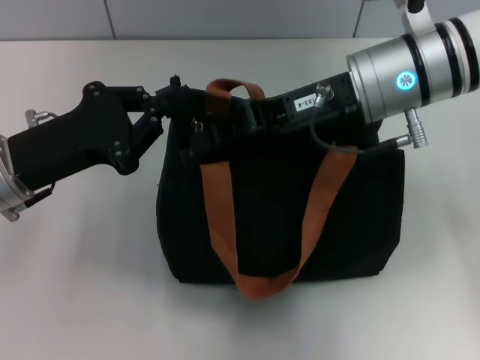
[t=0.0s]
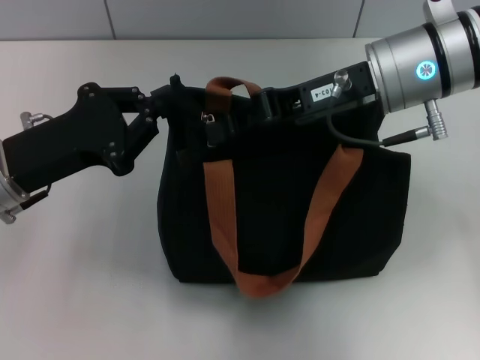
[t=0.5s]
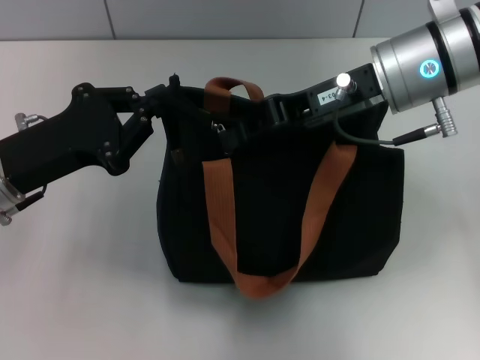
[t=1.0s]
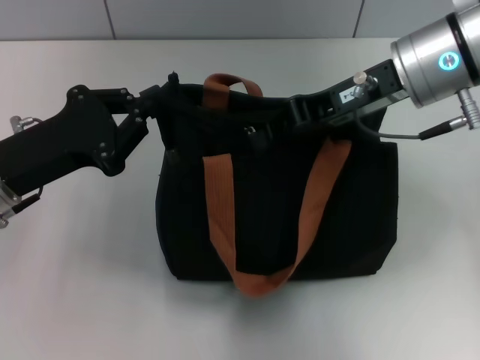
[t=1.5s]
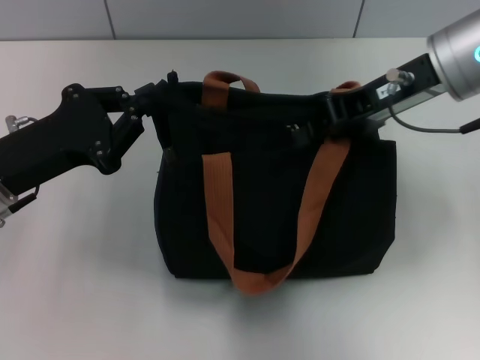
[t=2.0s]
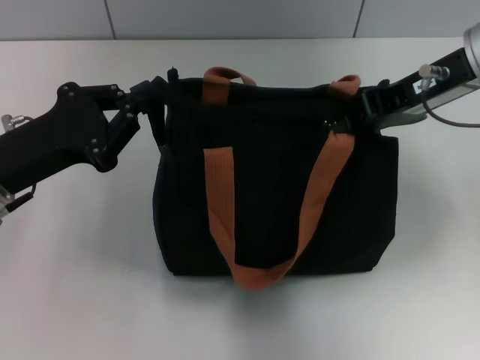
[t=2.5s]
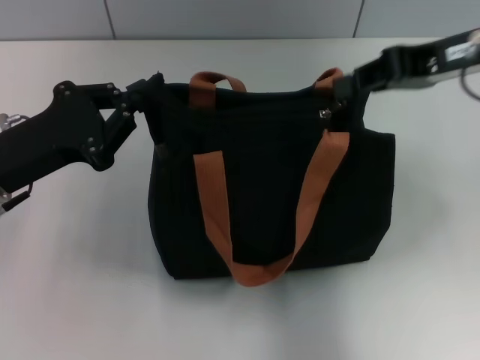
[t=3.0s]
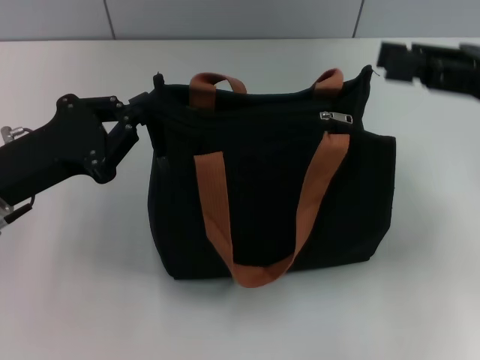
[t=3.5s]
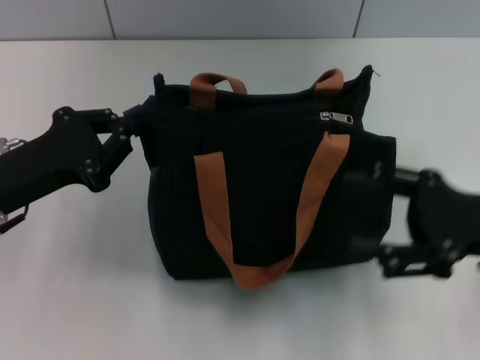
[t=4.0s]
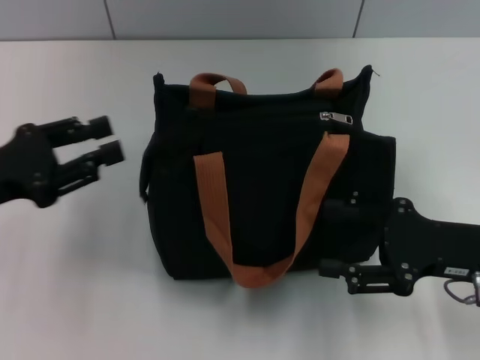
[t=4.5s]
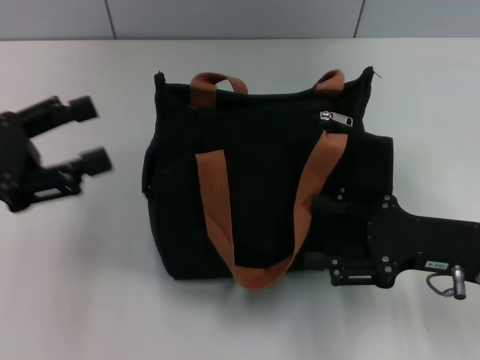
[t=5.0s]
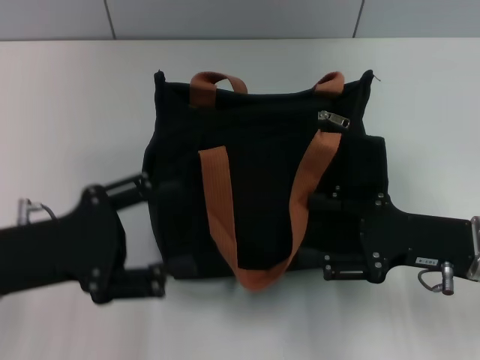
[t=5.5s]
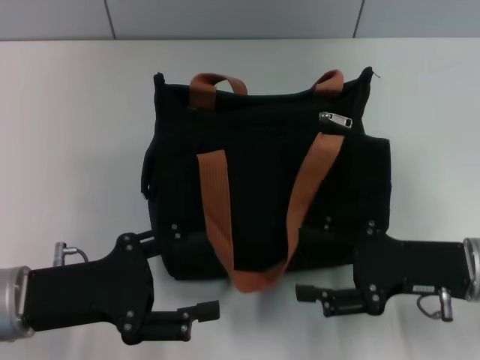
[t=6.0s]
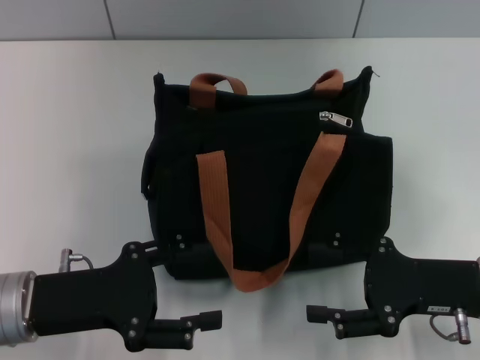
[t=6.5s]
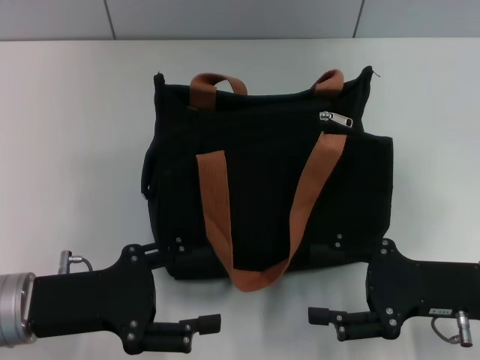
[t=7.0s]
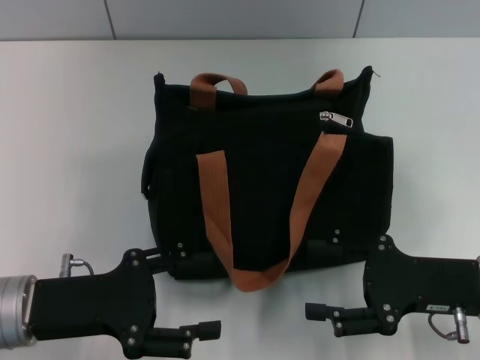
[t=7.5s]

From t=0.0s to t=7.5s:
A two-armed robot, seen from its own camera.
Step, from t=0.0s to t=3.0s: Pull up the zipper with your right hand.
From t=0.0s to t=2.0s: The right gripper is displaced to the right by approximately 5 cm.
From t=2.0s to t=4.0s: The right gripper goes about 20 cm downward, backward and to the right, and opens.
From t=4.0s to t=5.5s: The left gripper opens its fingers. Meanwhile the right gripper ends up about 5 cm from where it was.

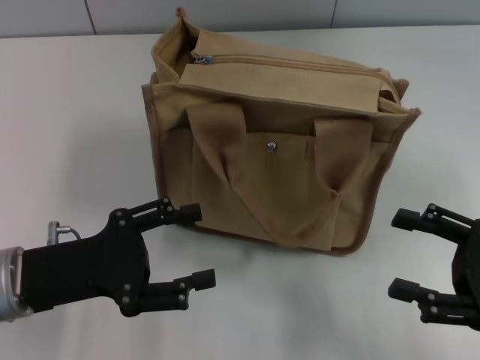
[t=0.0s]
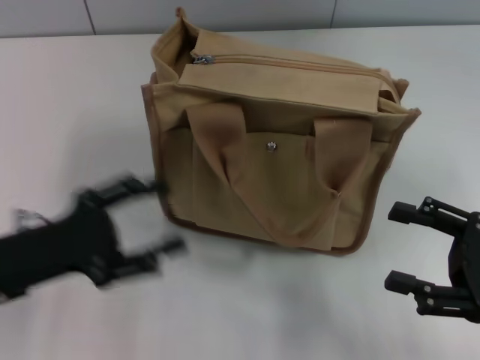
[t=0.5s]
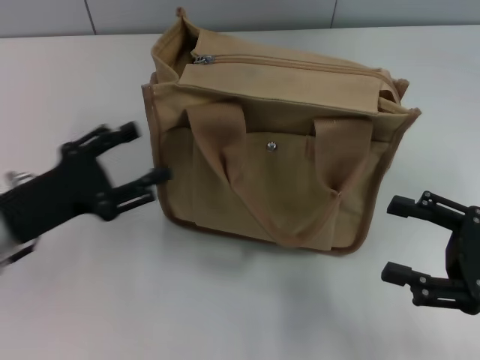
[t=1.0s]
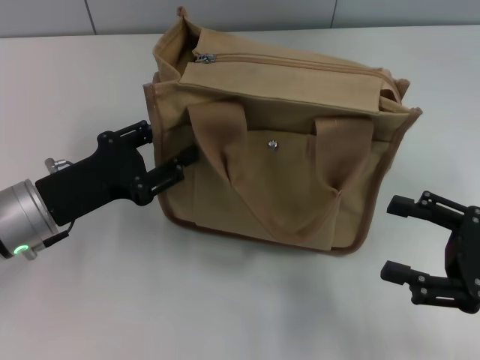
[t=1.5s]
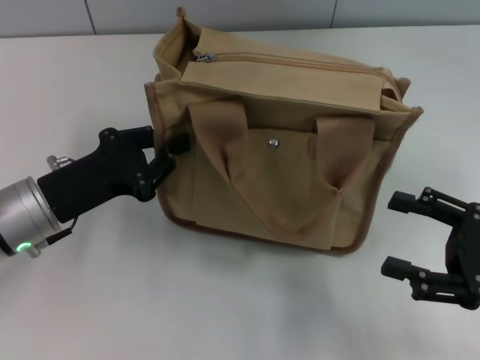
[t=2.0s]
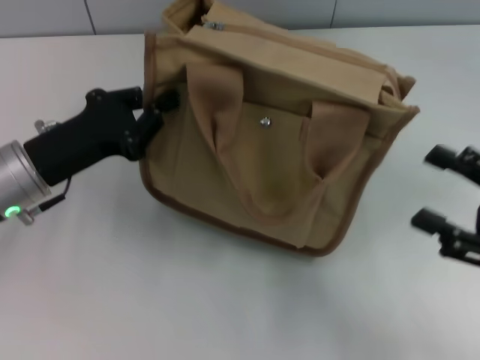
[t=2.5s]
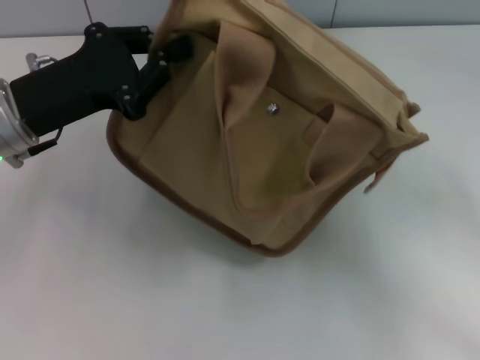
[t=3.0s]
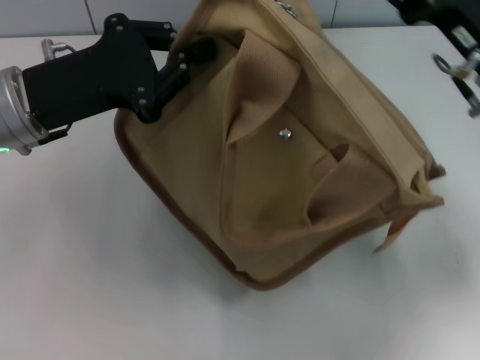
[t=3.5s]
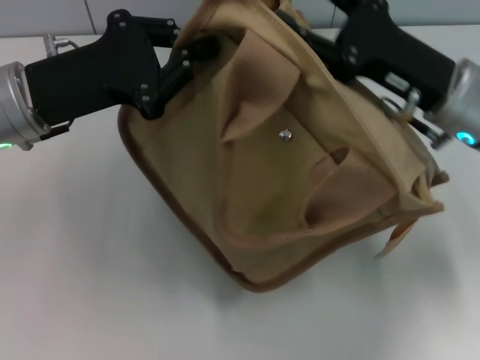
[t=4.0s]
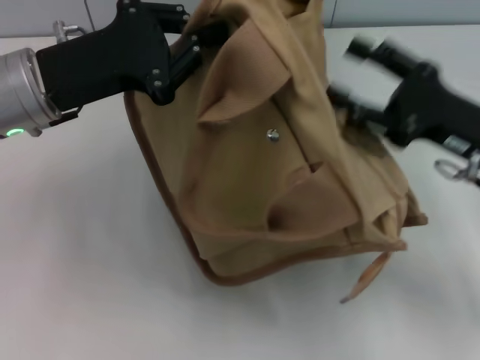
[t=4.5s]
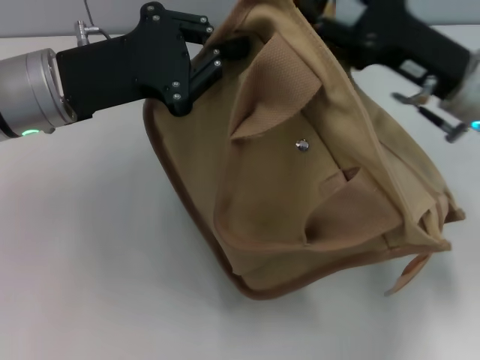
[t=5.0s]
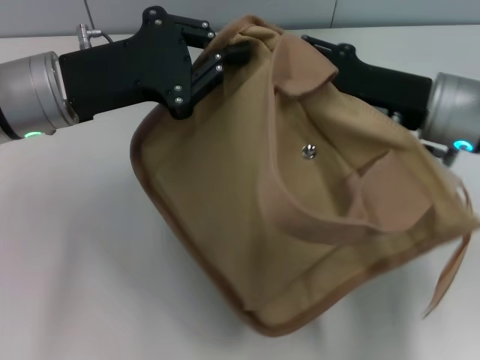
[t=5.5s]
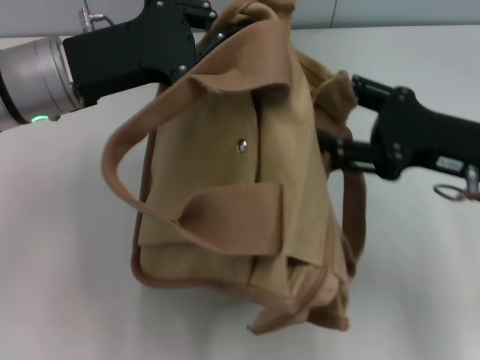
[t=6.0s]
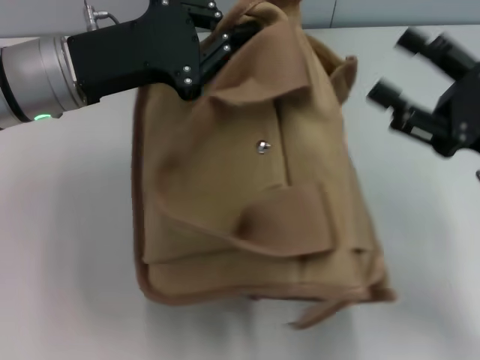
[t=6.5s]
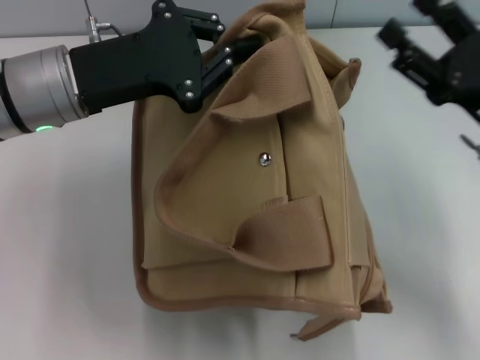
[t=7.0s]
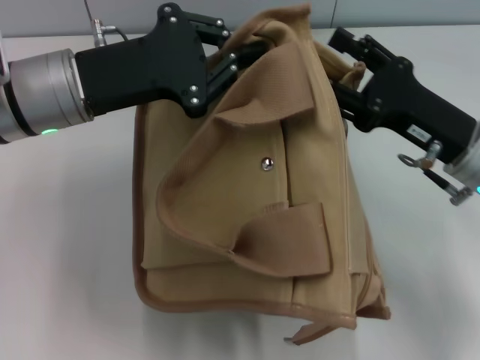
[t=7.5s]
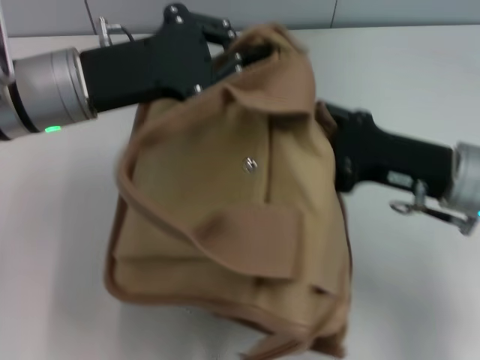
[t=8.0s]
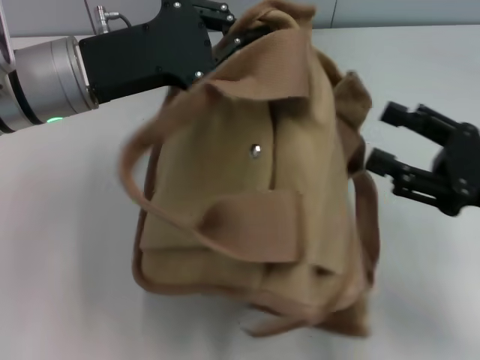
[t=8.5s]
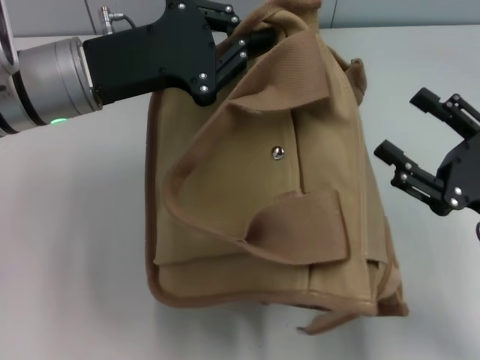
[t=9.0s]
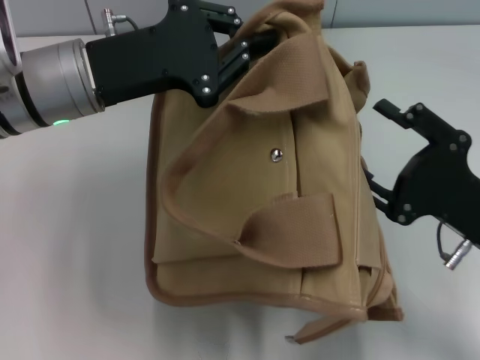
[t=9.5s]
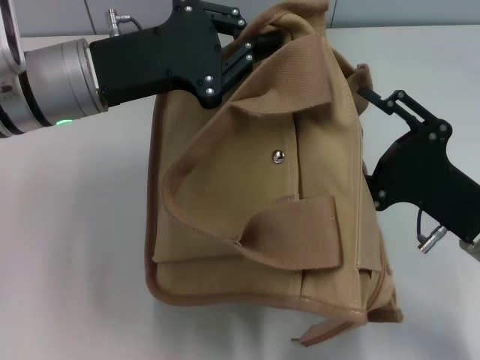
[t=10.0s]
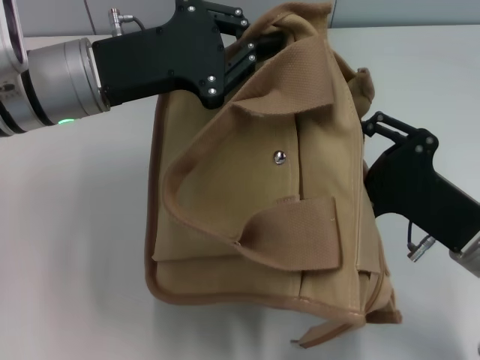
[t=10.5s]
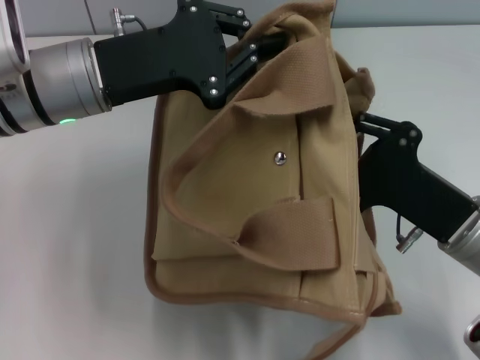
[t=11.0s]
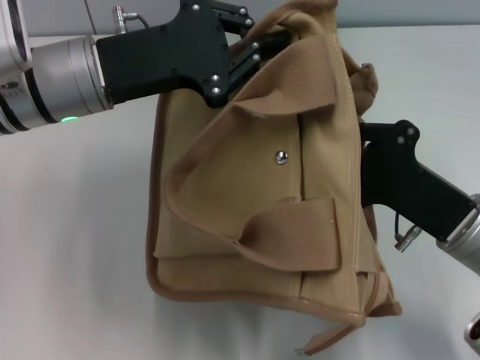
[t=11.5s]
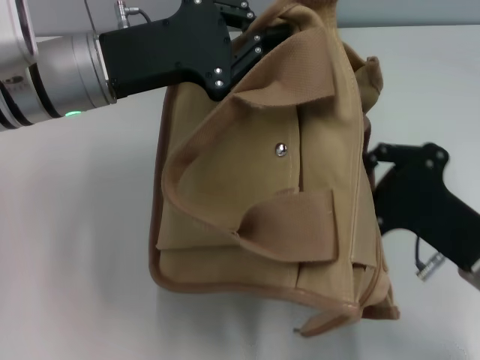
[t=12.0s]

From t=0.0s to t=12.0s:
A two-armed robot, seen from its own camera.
From t=0.0s to t=2.0s: The left gripper travels forward by about 5 cm, and closes its fingers.
From t=2.0s to t=4.0s: The right gripper moves forward and to the left, approximately 15 cm, while the left gripper is displaced upward by some 10 cm.
From t=4.0s to t=6.0s: The right gripper moves forward and backward over some 5 cm, changing direction 2 times.
From t=8.0s to t=10.0s: The right gripper shifts by some 5 cm.
From t=10.0s to t=12.0s: The right gripper closes up.

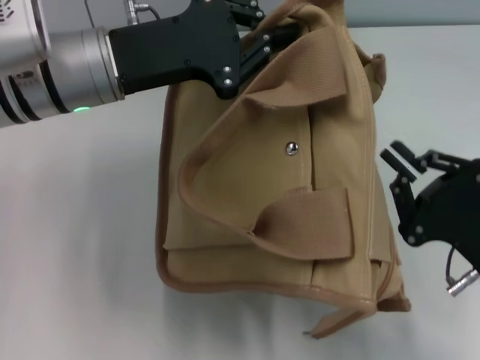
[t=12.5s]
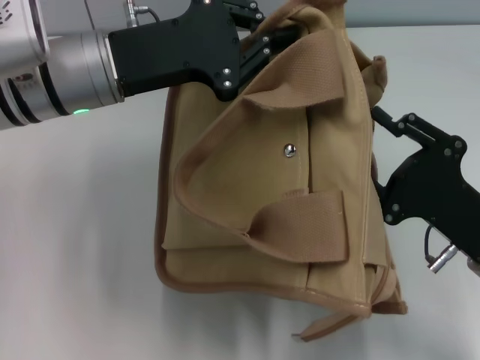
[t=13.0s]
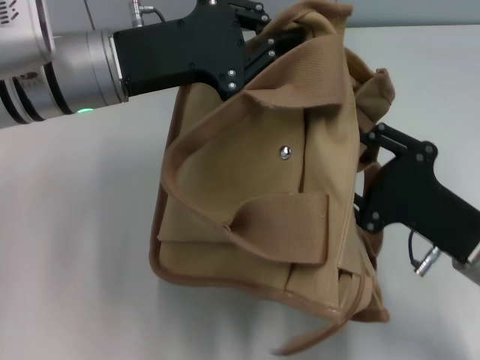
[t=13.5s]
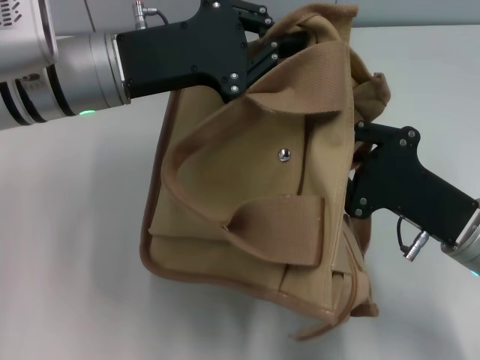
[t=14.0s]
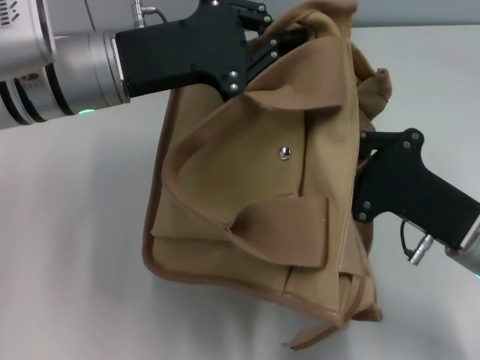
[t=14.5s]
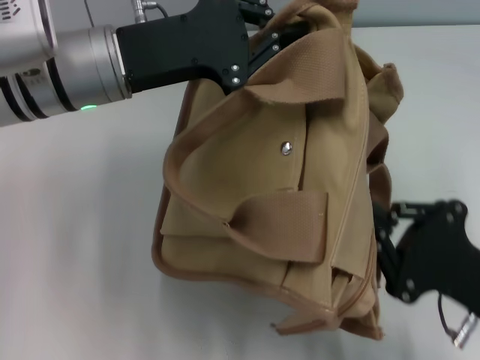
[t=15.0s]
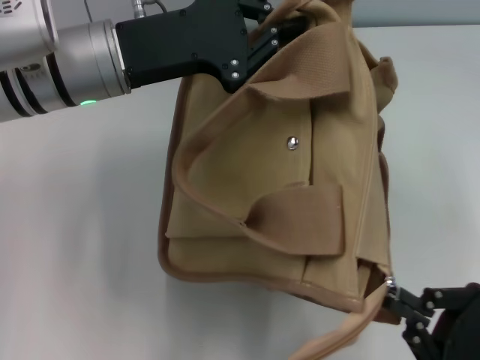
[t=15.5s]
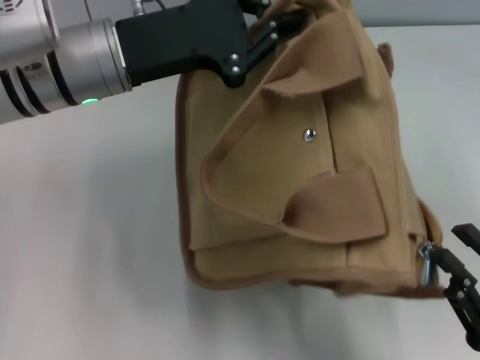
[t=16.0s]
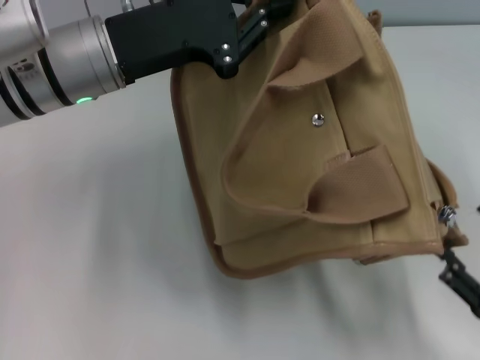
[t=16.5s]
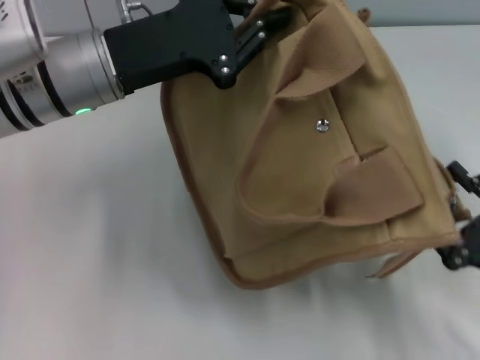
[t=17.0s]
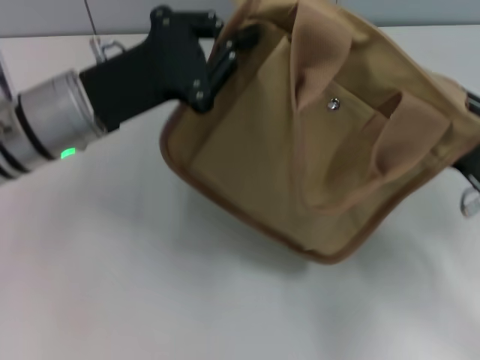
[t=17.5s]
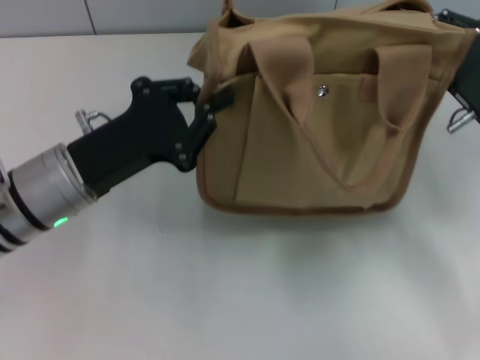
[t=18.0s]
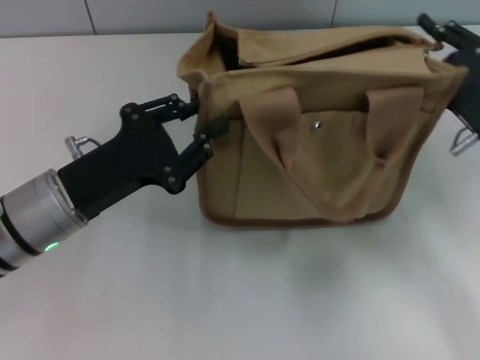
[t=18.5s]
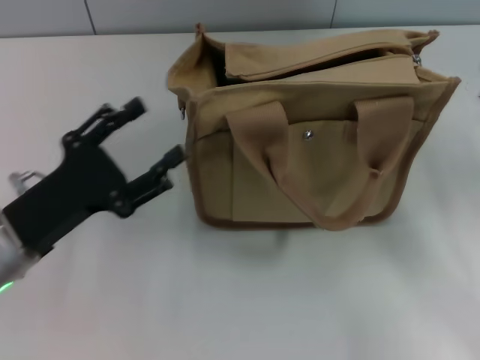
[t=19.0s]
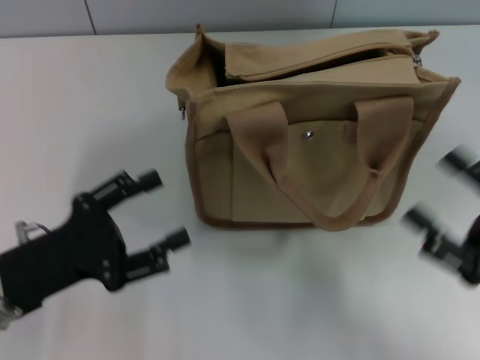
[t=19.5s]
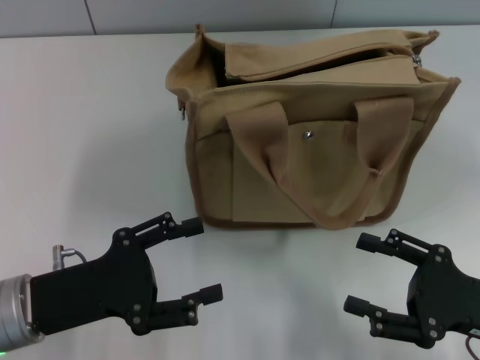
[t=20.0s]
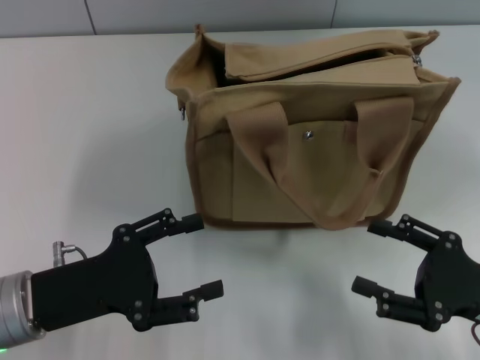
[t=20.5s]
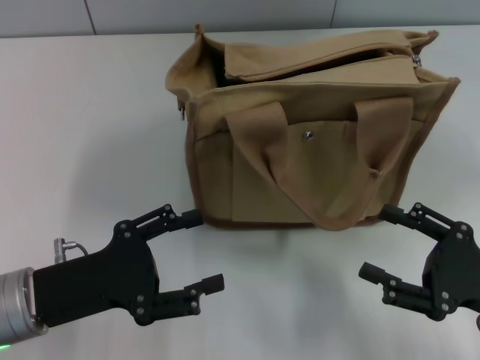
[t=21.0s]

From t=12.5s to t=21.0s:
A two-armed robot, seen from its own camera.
Step, from t=12.5s to t=16.0s: Pull open the zipper with your right hand.
Step, from t=16.5s to t=18.5s: Grab the bag with your left hand.
From t=12.5s to t=14.5s: The right gripper opens, then closes once more.
From t=14.5s to t=16.5s: The right gripper travels backward and to the right by about 15 cm, and opens.
From t=16.5s to t=19.0s: The left gripper heads backward, downward and to the left, covering roughly 20 cm, and opens; the right gripper moves forward, roughly 10 cm, and closes, then reopens.
From t=19.0s to t=21.0s: The right gripper goes about 5 cm backward.
